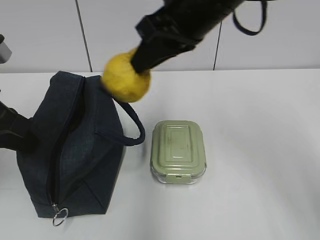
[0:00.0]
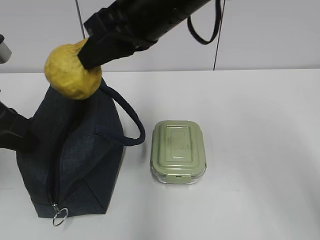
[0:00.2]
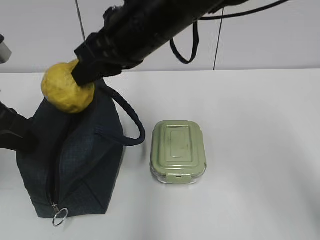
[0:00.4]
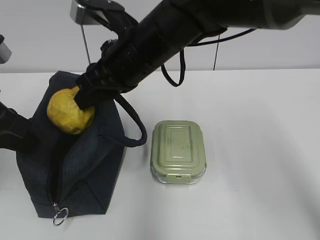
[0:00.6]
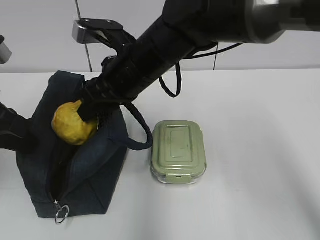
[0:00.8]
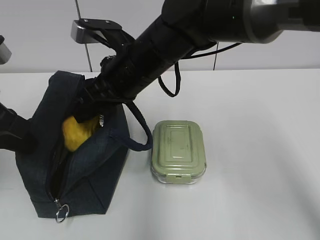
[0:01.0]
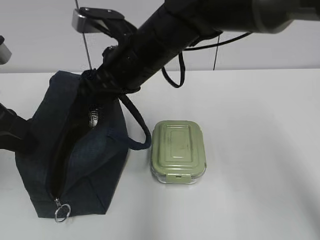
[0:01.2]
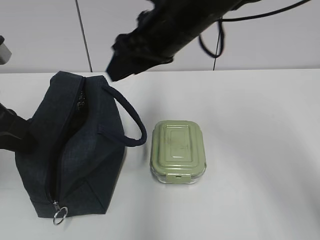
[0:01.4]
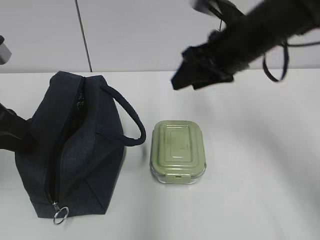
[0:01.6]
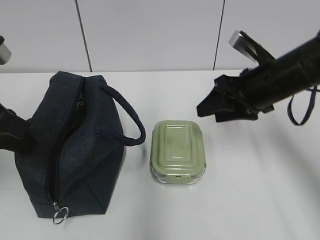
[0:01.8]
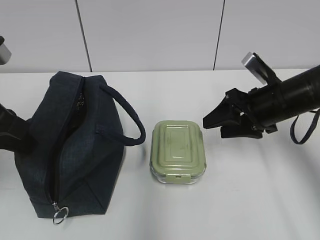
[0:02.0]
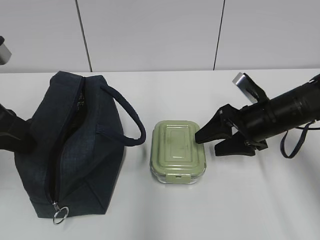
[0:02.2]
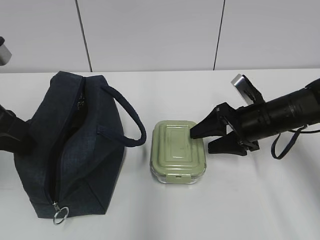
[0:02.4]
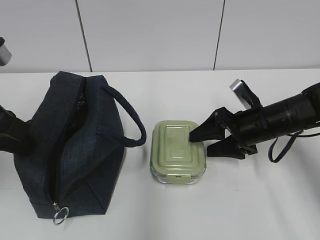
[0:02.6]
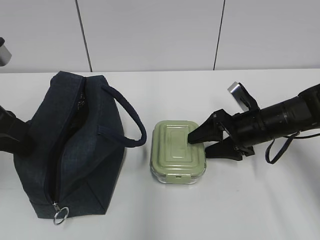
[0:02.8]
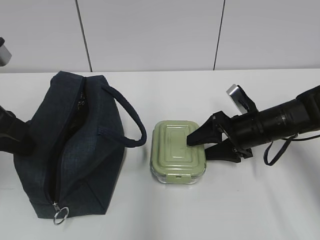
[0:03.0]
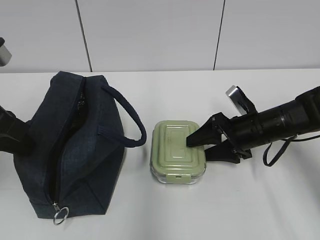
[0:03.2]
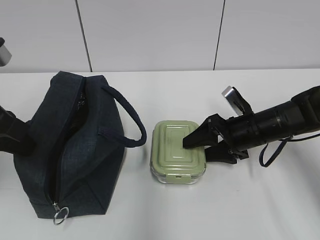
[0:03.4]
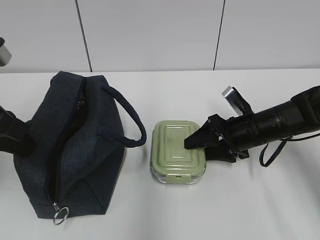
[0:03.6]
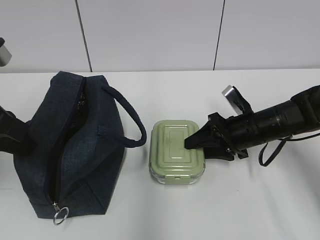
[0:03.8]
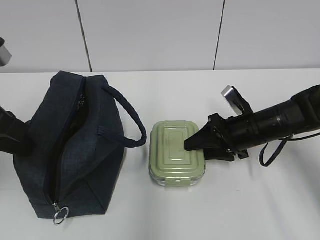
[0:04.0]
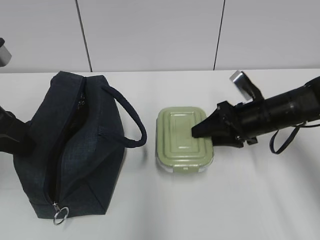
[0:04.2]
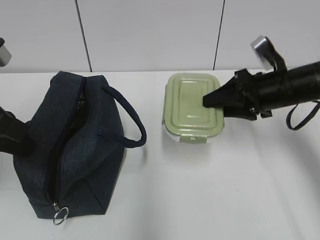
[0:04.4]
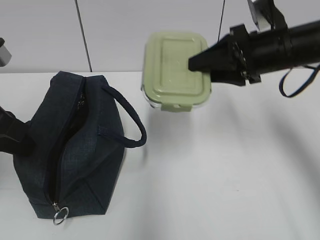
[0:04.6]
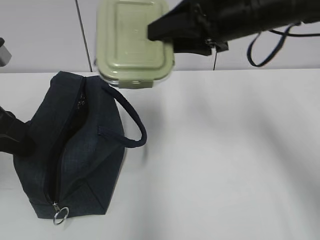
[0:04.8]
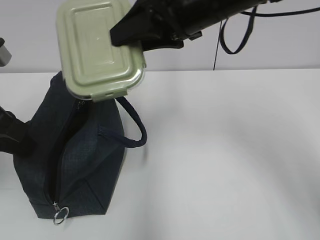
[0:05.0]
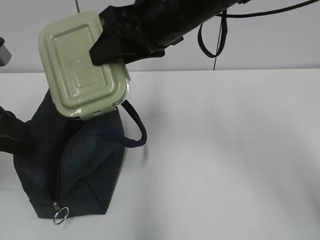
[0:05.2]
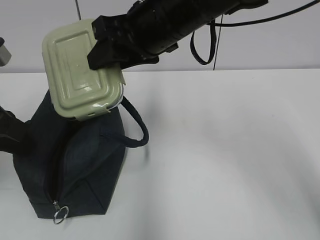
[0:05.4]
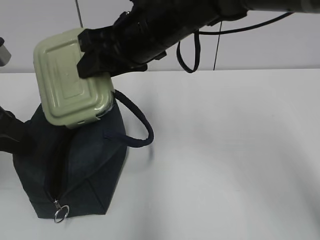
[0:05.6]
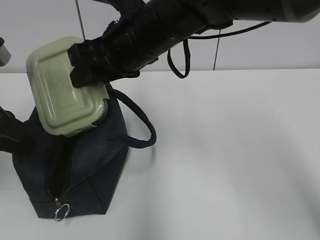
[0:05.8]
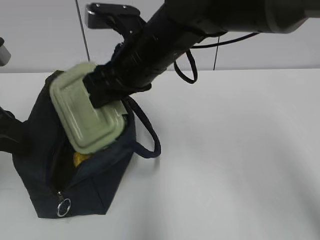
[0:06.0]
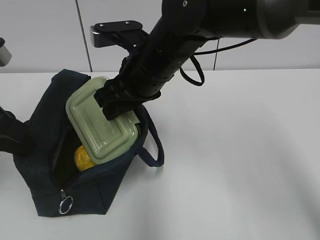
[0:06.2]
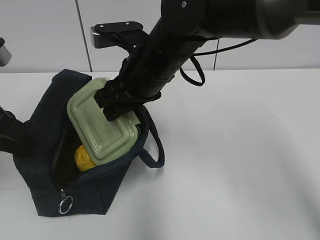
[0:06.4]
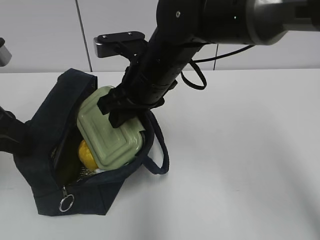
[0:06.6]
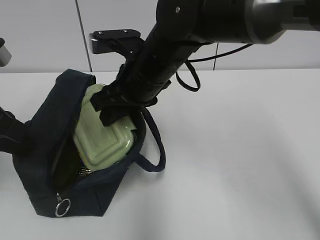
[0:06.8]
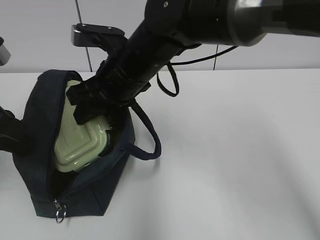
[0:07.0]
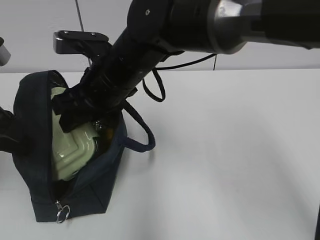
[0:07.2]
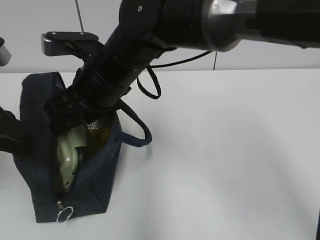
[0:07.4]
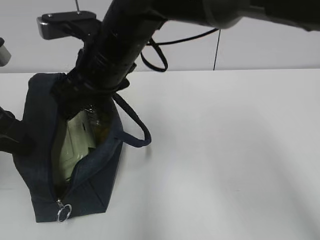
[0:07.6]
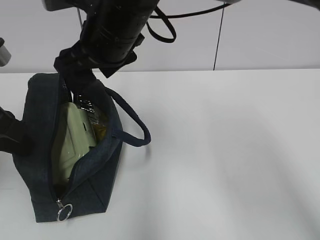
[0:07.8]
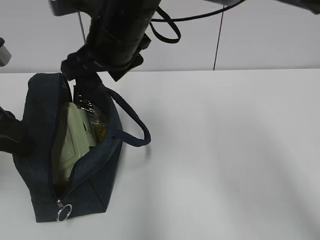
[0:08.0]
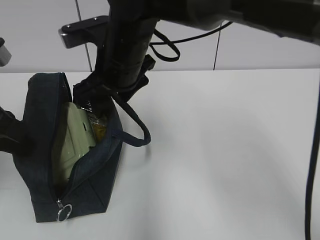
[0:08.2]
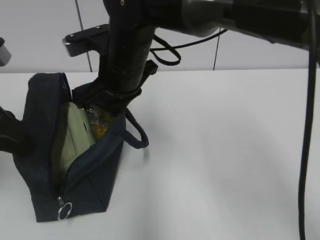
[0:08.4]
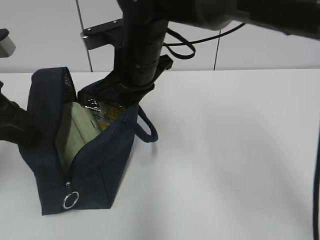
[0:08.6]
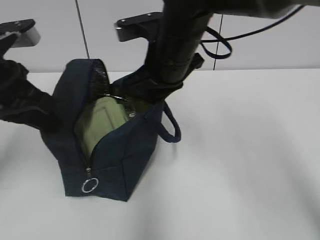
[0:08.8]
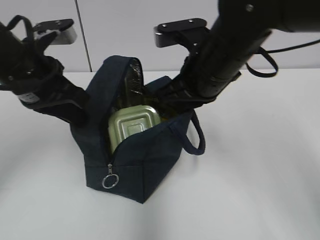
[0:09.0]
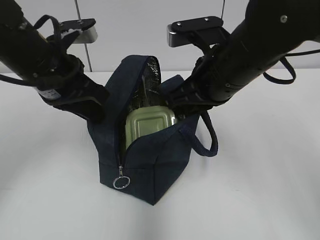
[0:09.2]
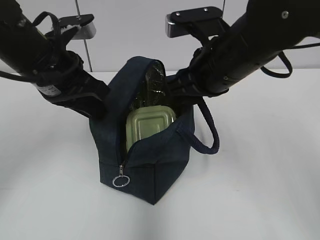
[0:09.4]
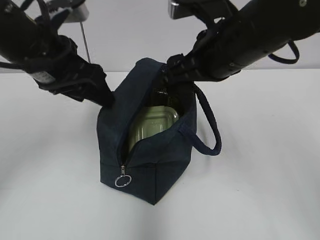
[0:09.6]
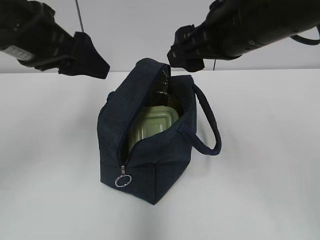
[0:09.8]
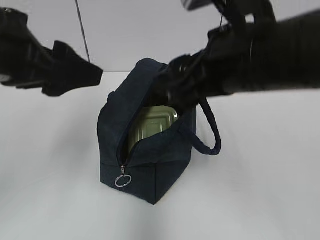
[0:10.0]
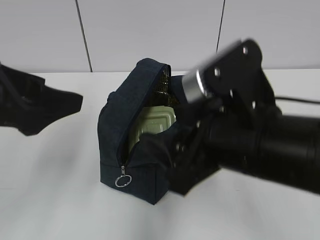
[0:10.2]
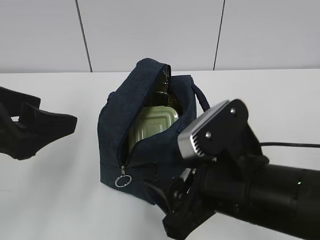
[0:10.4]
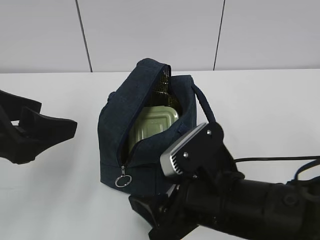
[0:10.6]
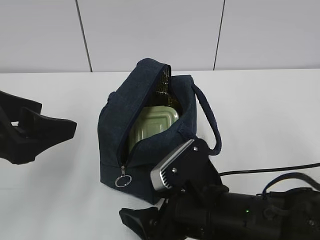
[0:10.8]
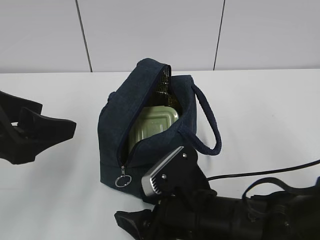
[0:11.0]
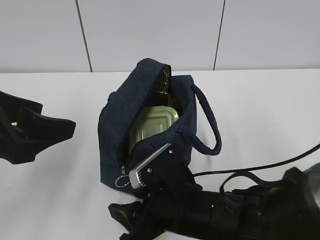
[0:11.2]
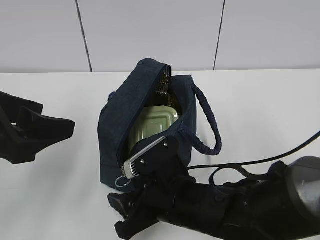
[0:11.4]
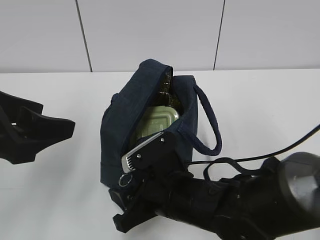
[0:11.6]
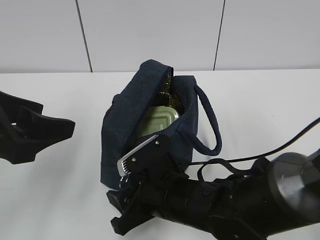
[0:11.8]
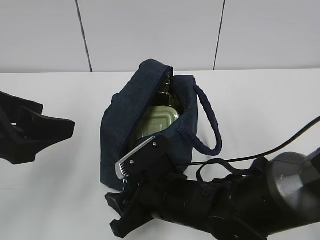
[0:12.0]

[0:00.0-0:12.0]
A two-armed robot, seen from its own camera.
Step, 0:00.0 to 0:01.0: Place it into the bag with your right hand.
Step, 0:01.2 to 0:04.0: Grab the lunch box with your right hand.
Step, 0:07.6 to 0:08.4: Grab the lunch bag with your right hand.
Step, 0:08.6 to 0:09.4: Move the lunch bag to the right.
0:00.0 to 0:01.6: The right gripper moves downward and to the right, some 10 cm, and opens up.
0:01.6 to 0:03.0: The right gripper moves downward, approximately 15 cm.
0:03.0 to 0:04.4: The right gripper travels upward by some 10 cm, and closes.
0:04.4 to 0:06.0: The right gripper heads to the left, covering approximately 20 cm.
0:07.6 to 0:09.0: The right gripper heads to the right, covering approximately 15 cm, and closes up. Meanwhile the left gripper goes about 10 cm forward and to the right.
0:09.0 to 0:10.4: The left gripper travels backward by about 10 cm, and opens. The right gripper moves backward and downward, roughly 15 cm, and opens up.
0:10.4 to 0:12.0: The right gripper travels downward, to the left and forward by roughly 15 cm.

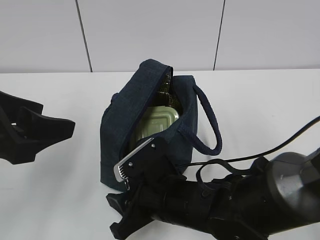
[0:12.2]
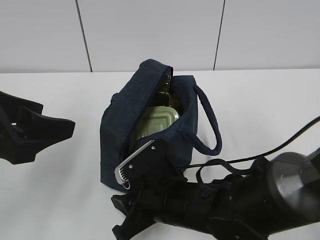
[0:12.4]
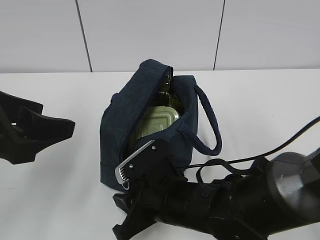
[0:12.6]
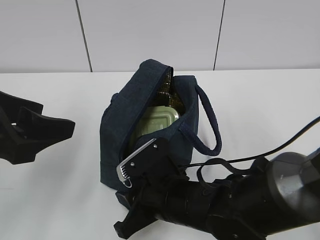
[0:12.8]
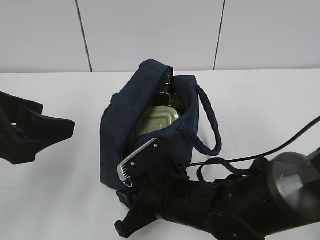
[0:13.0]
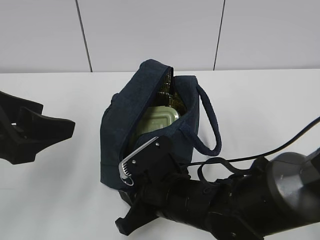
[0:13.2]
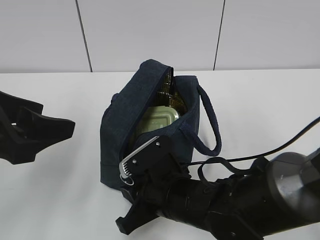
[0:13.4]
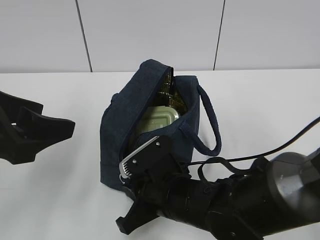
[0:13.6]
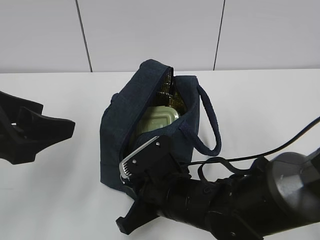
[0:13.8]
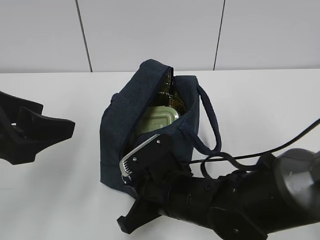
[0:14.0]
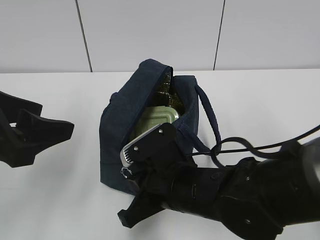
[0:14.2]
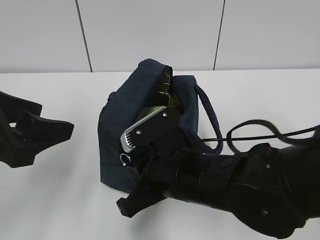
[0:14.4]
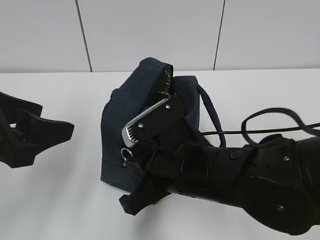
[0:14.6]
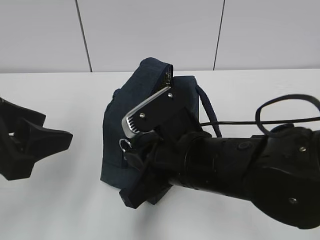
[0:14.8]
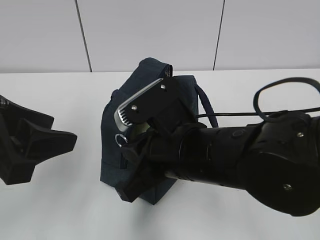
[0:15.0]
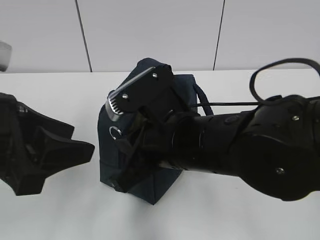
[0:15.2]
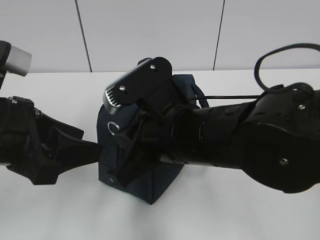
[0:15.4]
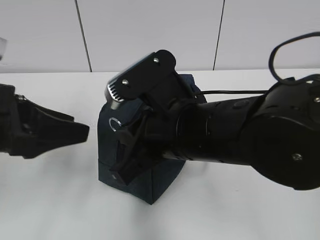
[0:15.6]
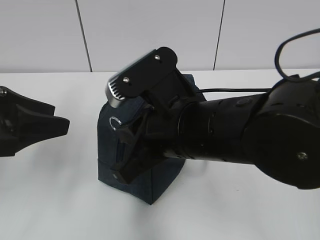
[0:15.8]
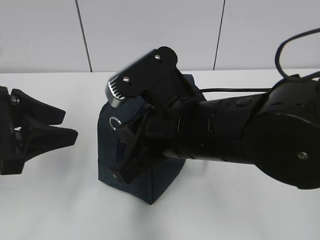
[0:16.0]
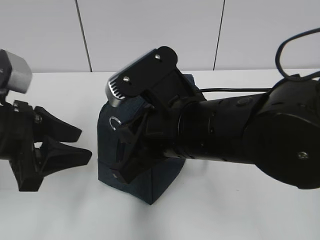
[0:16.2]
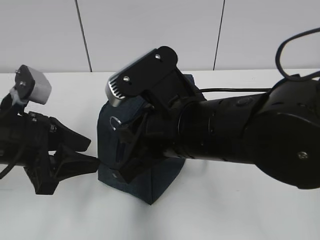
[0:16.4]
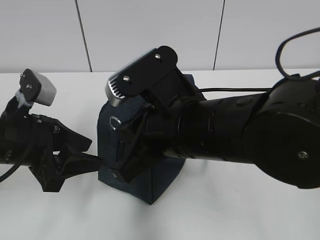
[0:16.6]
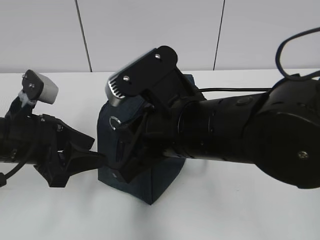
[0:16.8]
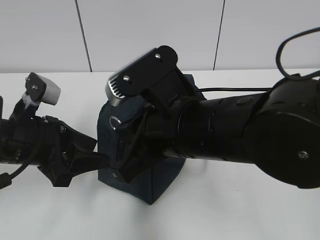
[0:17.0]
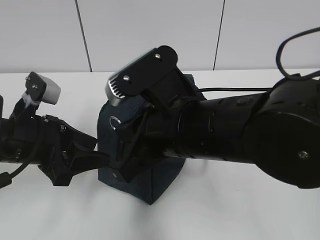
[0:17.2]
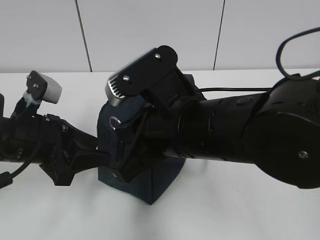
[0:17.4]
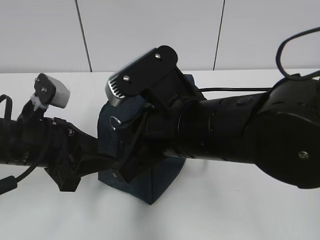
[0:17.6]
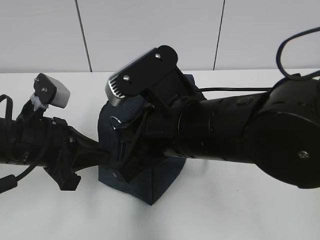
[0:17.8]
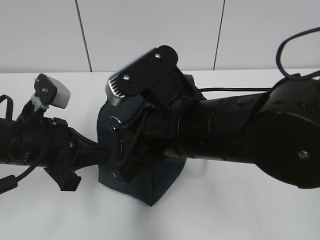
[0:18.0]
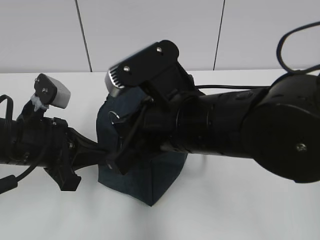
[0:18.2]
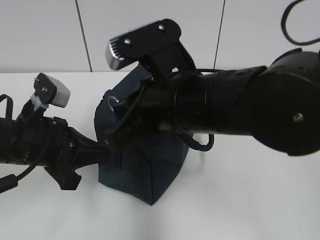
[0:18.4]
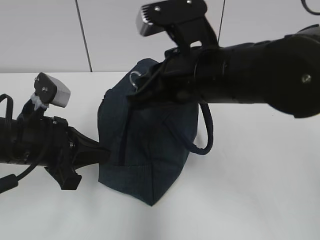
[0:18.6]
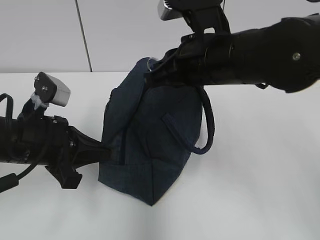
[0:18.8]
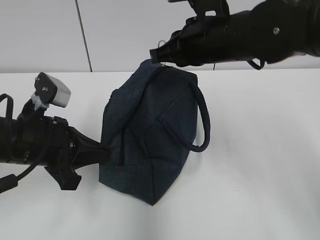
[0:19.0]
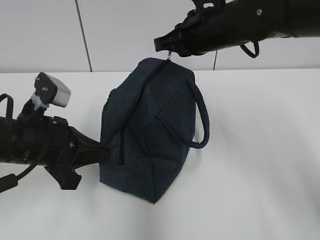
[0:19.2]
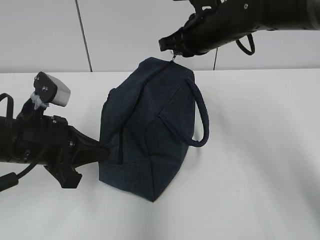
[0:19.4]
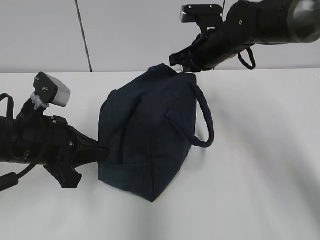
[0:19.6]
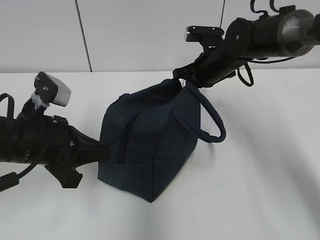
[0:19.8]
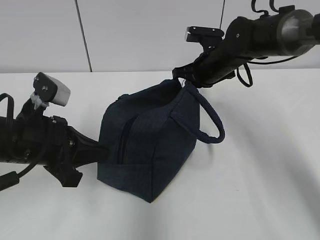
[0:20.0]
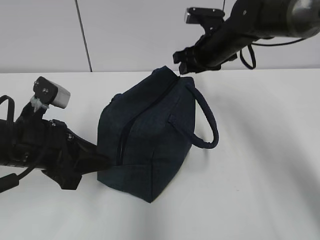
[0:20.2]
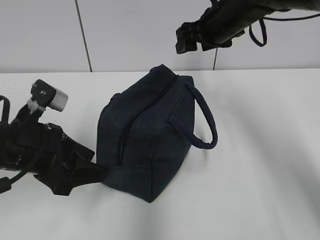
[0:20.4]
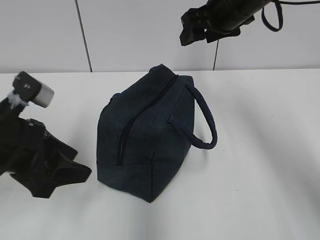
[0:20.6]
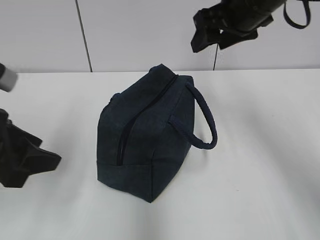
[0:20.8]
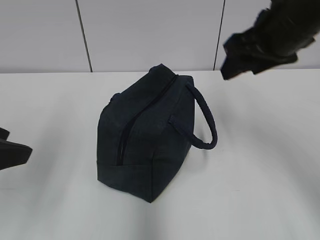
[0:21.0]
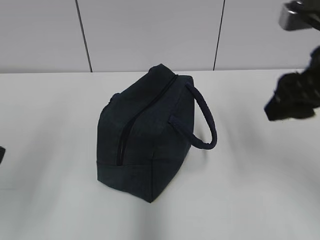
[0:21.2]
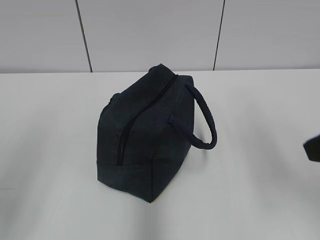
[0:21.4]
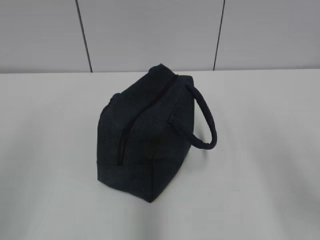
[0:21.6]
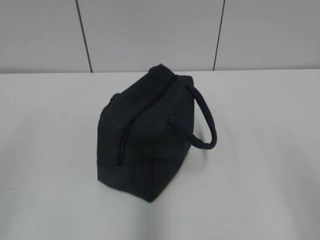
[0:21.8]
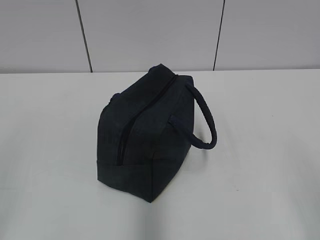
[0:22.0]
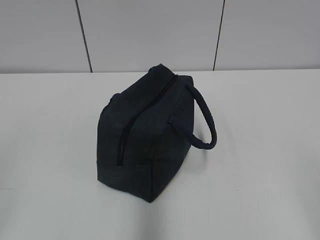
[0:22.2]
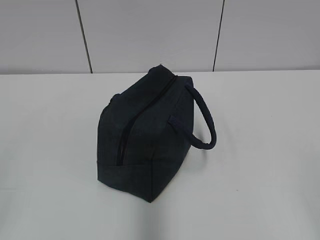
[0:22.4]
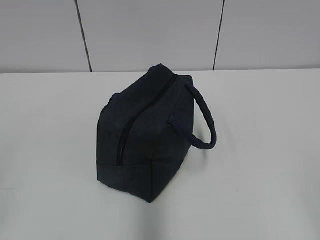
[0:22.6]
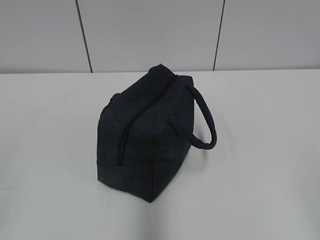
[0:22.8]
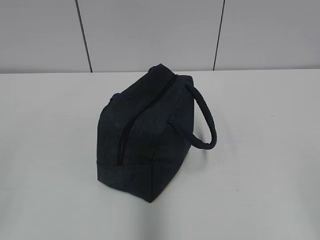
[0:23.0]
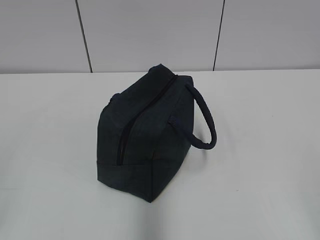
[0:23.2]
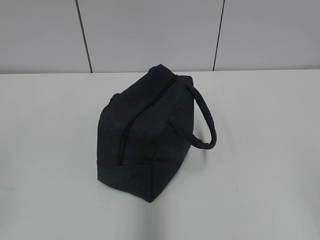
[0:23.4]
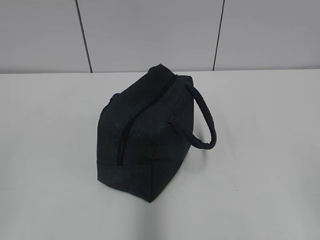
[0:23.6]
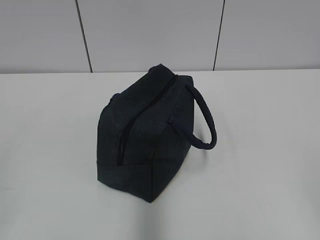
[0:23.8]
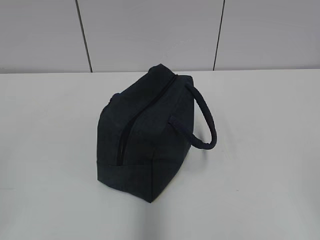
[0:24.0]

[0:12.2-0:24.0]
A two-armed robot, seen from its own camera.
Step, 0:12.2 to 0:20.0: Pull the zipper with your right hand.
0:12.2 to 0:13.6: The right gripper closes.
0:13.6 to 0:15.2: The right gripper heads upward, covering some 10 cm.
0:15.2 to 0:16.6: The left gripper heads downward and forward, covering some 10 cm.
0:16.6 to 0:18.2: The left gripper closes.
0:18.2 to 0:19.6: The right gripper travels forward and to the right by approximately 25 cm.
0:19.6 to 0:21.0: The right gripper shifts about 15 cm backward and upward, and opens up; the left gripper is displaced upward, backward and to the left by about 15 cm, and opens its fingers.
0:21.0 to 0:22.6: The left gripper is displaced backward by some 15 cm. The right gripper shifts roughly 35 cm backward.
